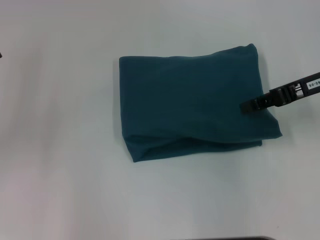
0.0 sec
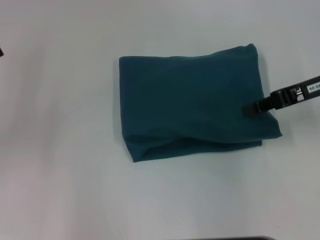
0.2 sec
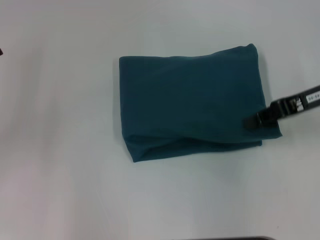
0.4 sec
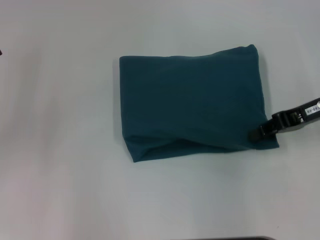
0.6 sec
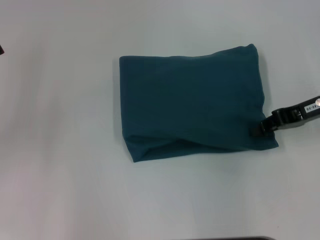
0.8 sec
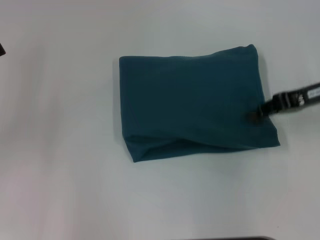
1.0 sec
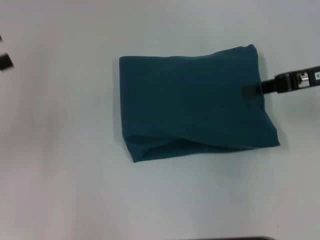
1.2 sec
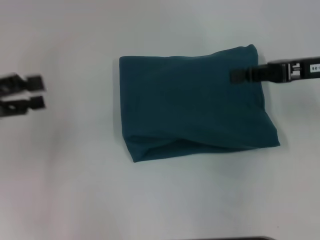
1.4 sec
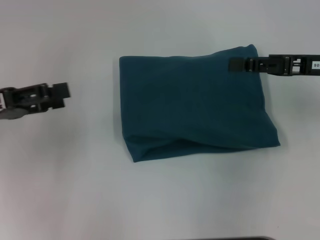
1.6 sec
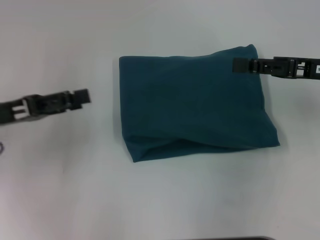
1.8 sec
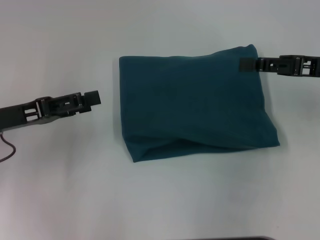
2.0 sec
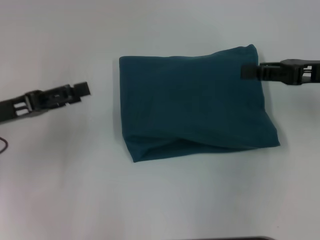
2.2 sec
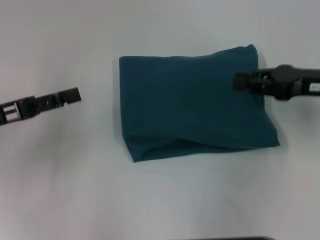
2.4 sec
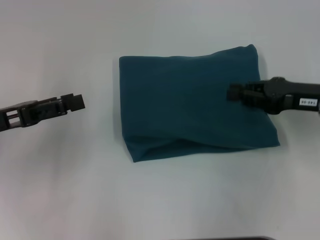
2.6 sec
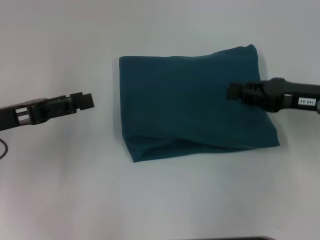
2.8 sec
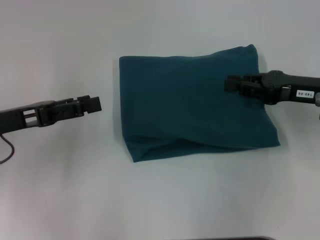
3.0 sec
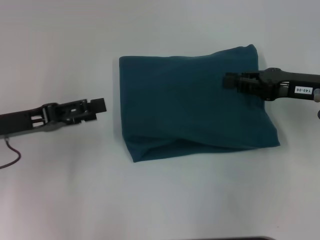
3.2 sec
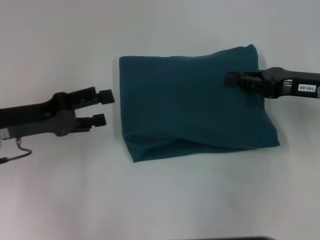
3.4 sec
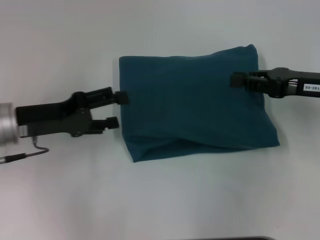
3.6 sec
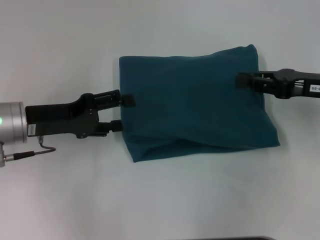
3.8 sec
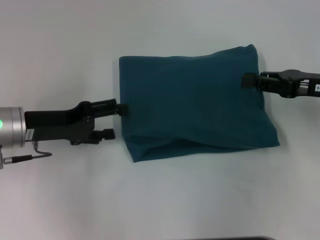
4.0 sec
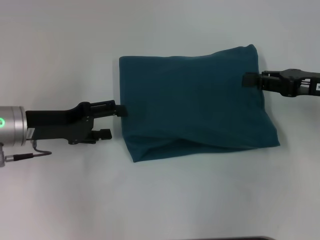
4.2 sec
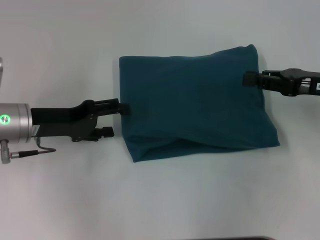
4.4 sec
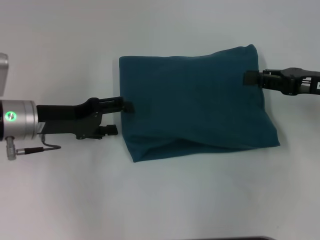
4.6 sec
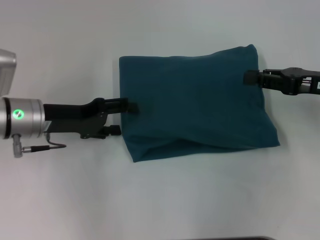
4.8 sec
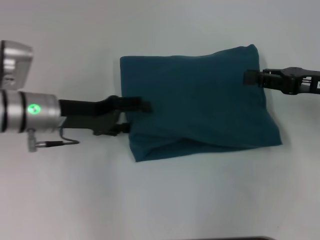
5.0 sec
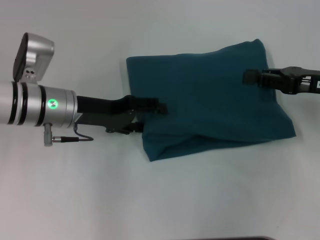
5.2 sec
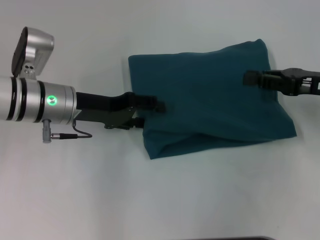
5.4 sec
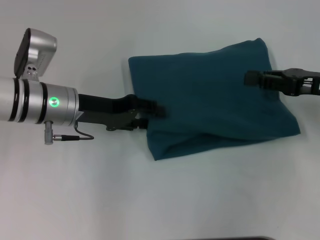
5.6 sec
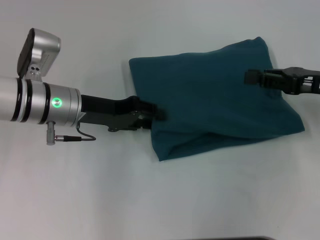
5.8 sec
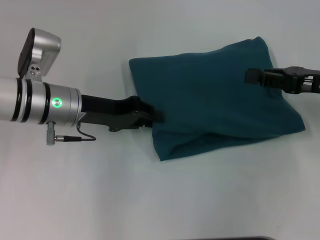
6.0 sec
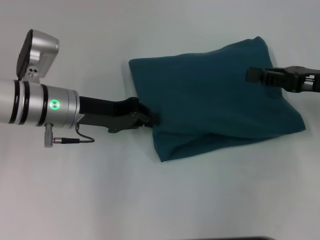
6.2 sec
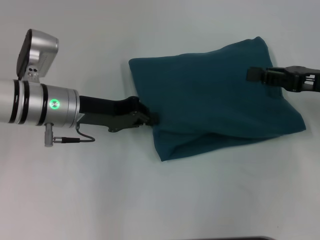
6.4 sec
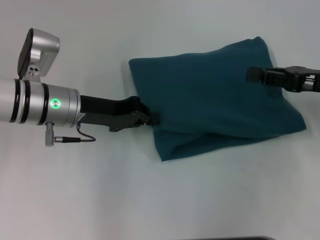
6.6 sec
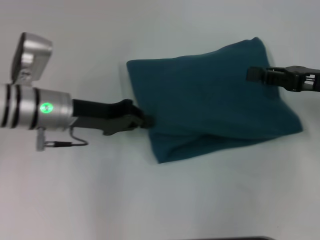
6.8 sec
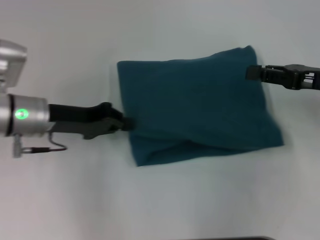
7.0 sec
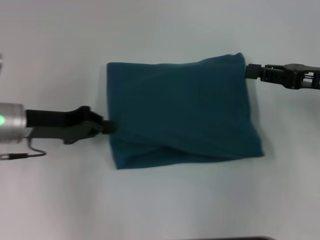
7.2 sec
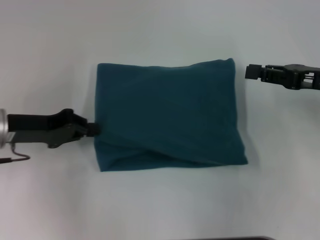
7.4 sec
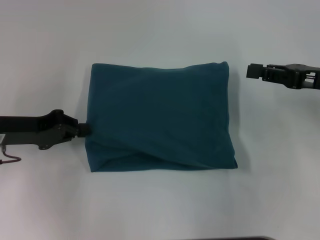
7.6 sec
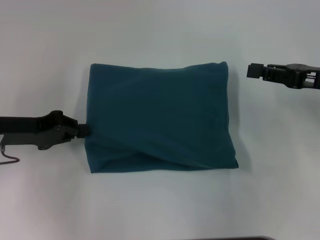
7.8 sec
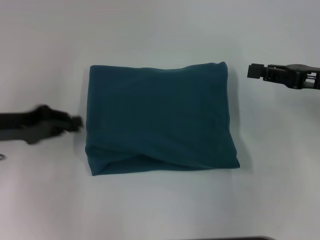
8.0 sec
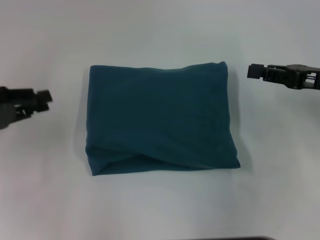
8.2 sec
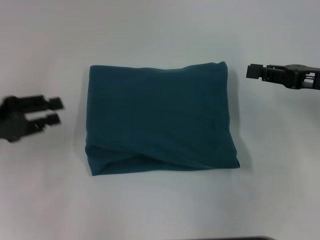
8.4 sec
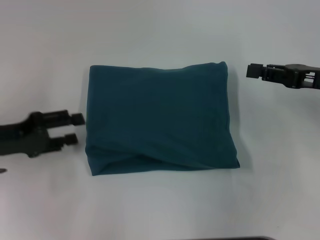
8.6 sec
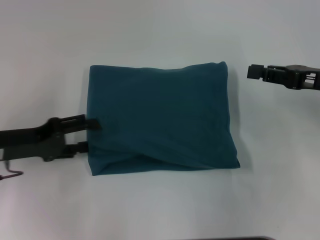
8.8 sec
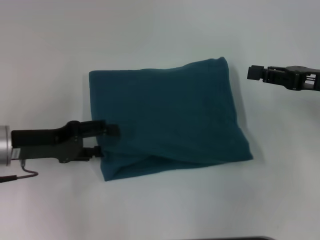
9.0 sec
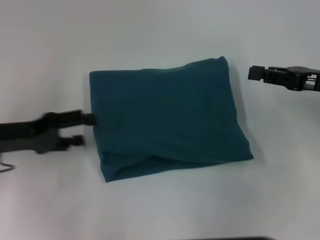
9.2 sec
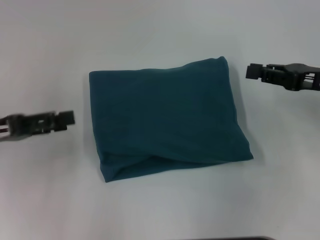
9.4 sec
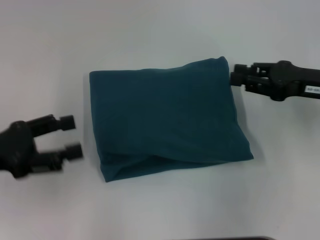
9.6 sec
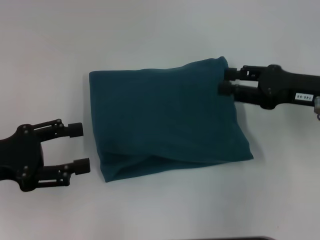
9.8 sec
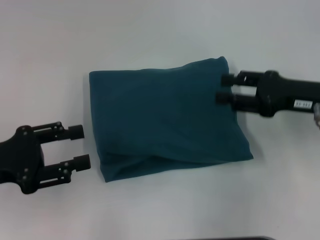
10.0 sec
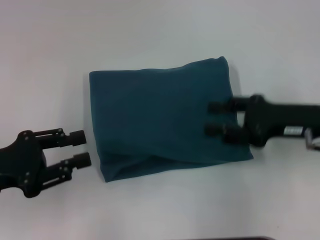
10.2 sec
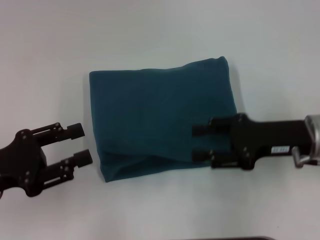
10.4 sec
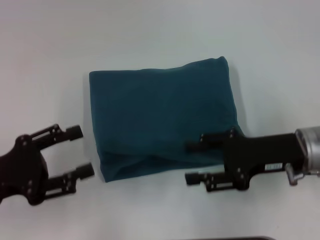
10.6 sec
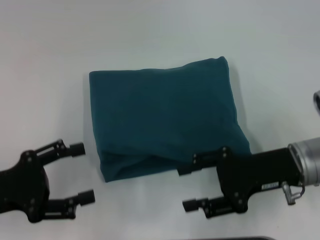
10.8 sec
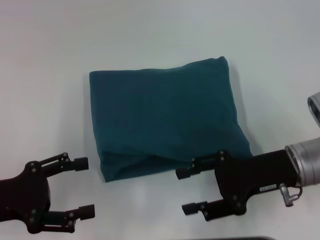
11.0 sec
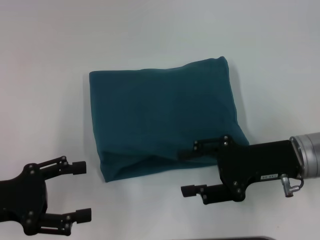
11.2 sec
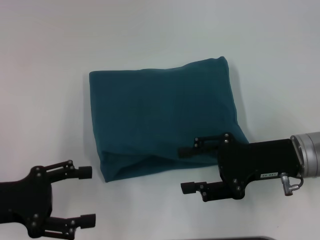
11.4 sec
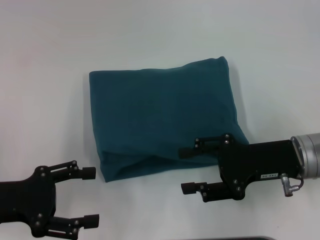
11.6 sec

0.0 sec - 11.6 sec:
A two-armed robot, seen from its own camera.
0.0 sec - 1.4 sec: The right gripper closes.
1.4 sec - 2.8 sec: The left gripper moves roughly 5 cm. Meanwhile the right gripper goes approximately 5 cm downward.
2.8 sec - 4.4 sec: The left gripper shifts some 5 cm to the right.
4.4 sec - 5.8 sec: The left gripper travels to the right by roughly 5 cm.
5.8 sec - 7.2 sec: The left gripper shifts approximately 5 cm to the left, and closes its fingers.
7.2 sec - 8.8 sec: The left gripper opens.
8.8 sec - 10.2 sec: The left gripper shifts roughly 5 cm backward. The right gripper goes roughly 5 cm to the left, and opens.

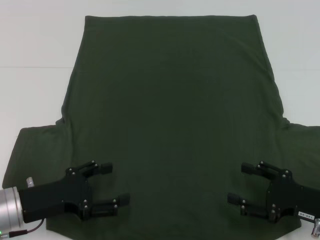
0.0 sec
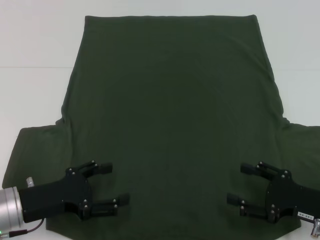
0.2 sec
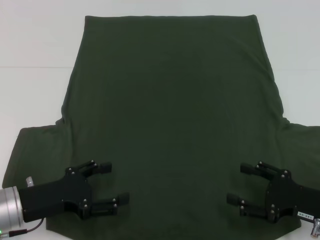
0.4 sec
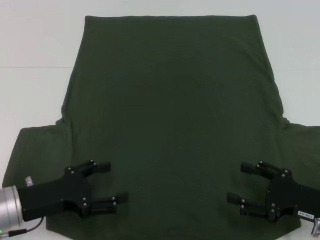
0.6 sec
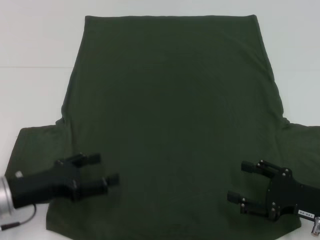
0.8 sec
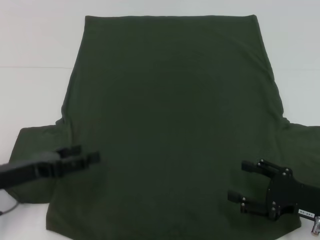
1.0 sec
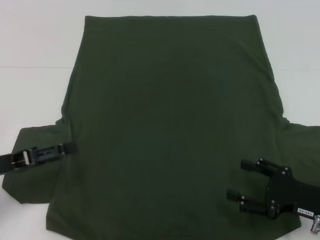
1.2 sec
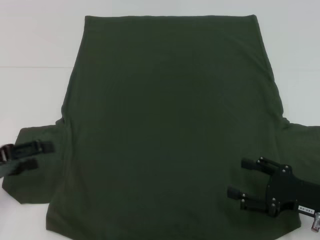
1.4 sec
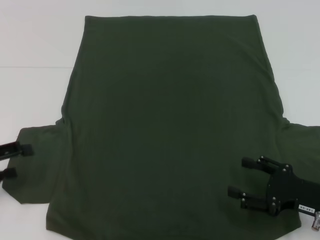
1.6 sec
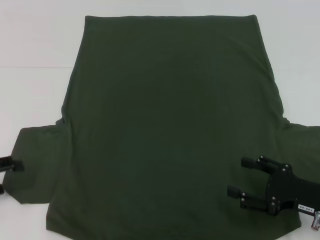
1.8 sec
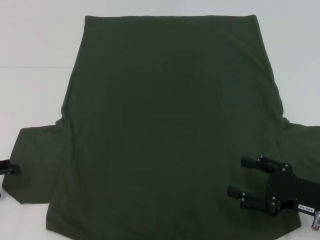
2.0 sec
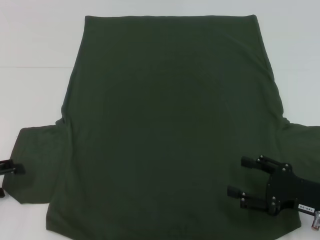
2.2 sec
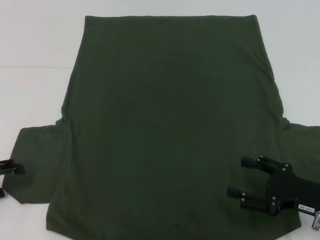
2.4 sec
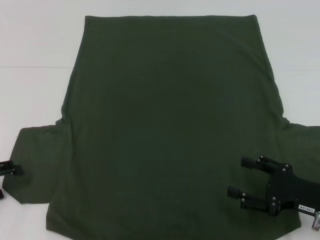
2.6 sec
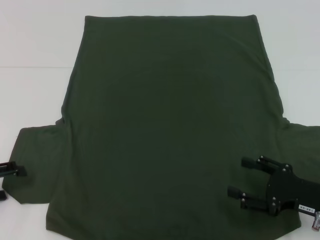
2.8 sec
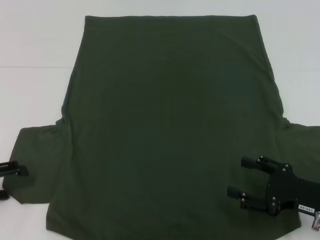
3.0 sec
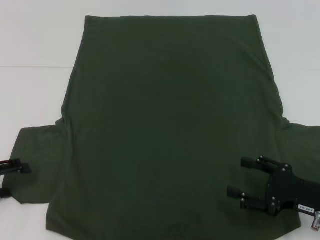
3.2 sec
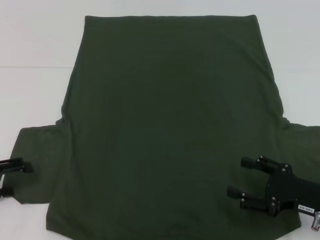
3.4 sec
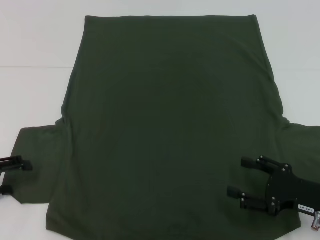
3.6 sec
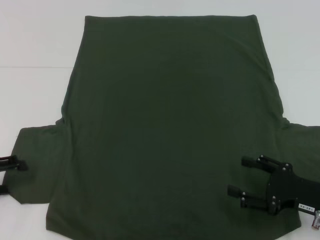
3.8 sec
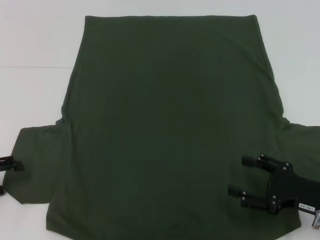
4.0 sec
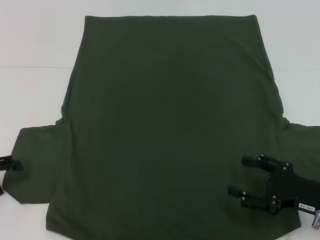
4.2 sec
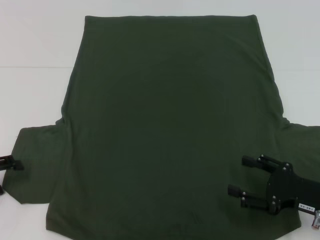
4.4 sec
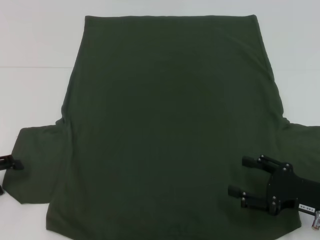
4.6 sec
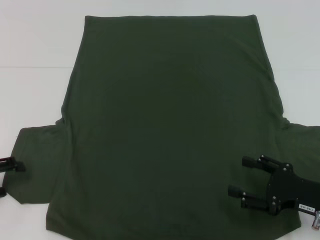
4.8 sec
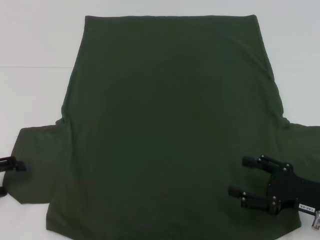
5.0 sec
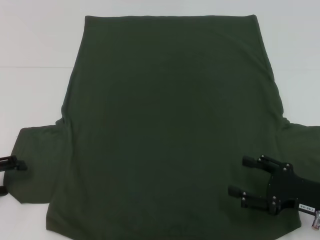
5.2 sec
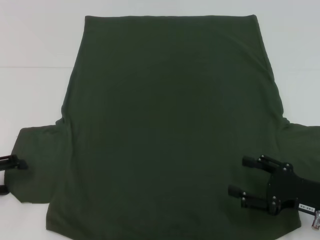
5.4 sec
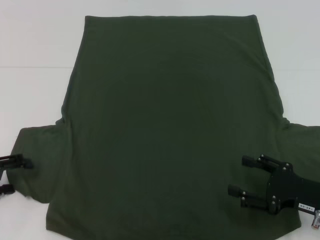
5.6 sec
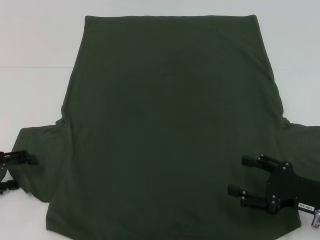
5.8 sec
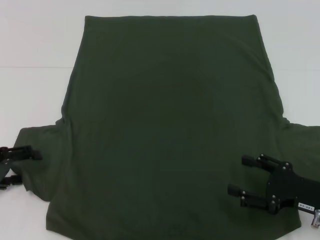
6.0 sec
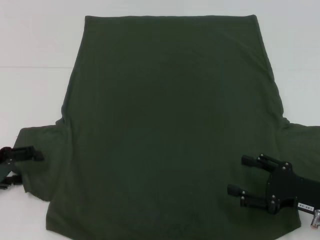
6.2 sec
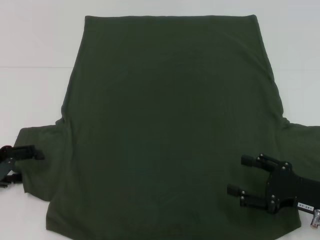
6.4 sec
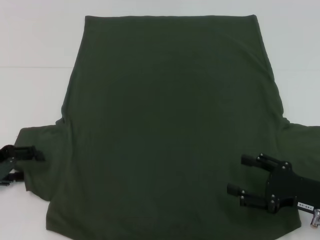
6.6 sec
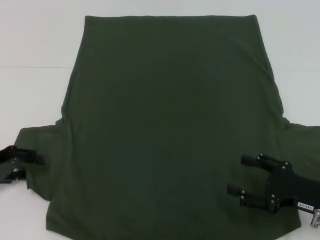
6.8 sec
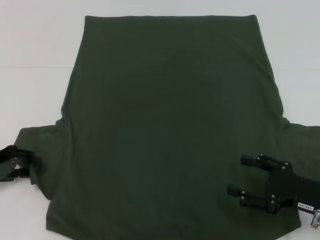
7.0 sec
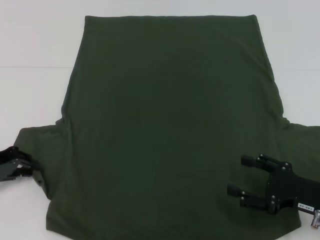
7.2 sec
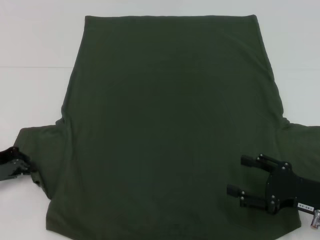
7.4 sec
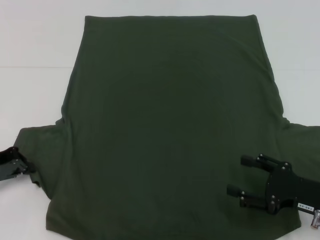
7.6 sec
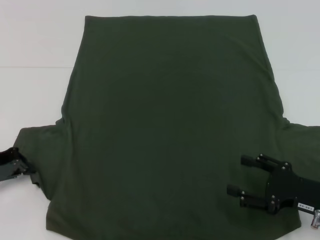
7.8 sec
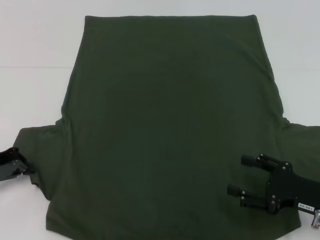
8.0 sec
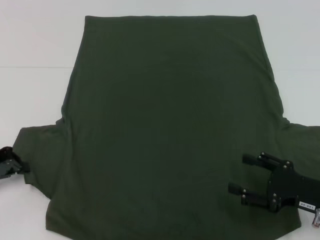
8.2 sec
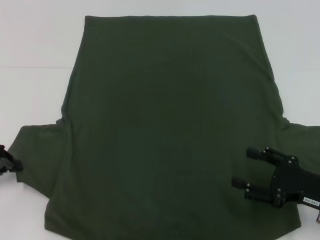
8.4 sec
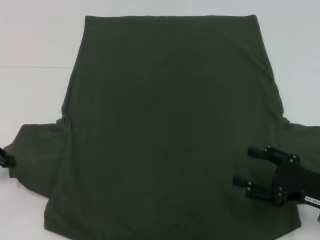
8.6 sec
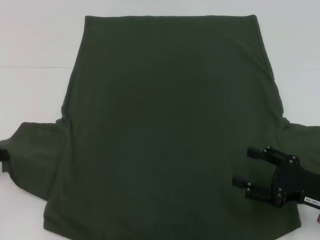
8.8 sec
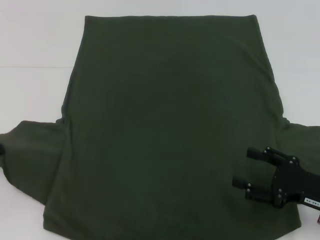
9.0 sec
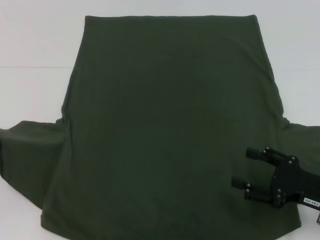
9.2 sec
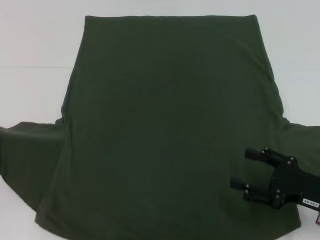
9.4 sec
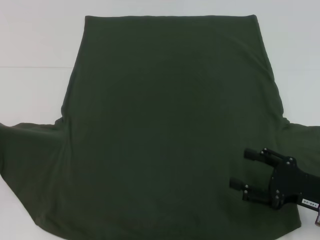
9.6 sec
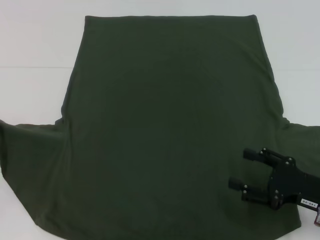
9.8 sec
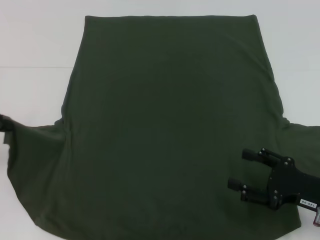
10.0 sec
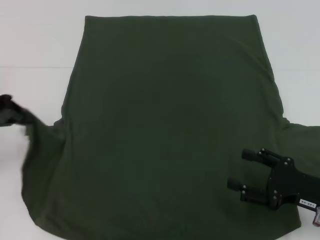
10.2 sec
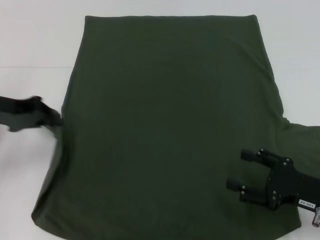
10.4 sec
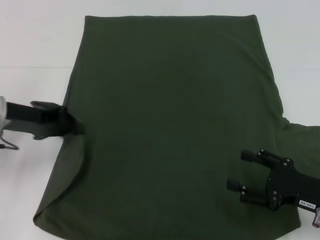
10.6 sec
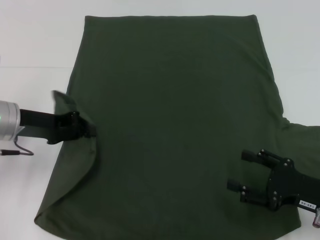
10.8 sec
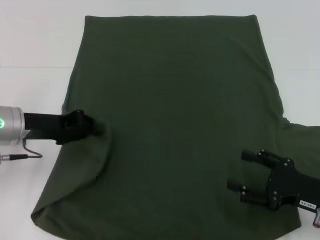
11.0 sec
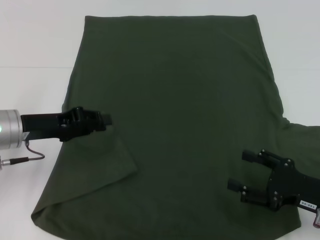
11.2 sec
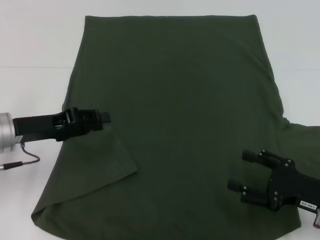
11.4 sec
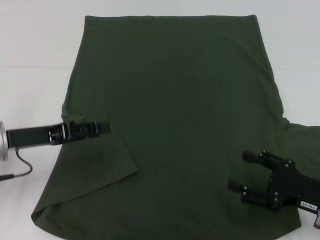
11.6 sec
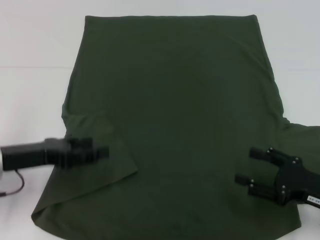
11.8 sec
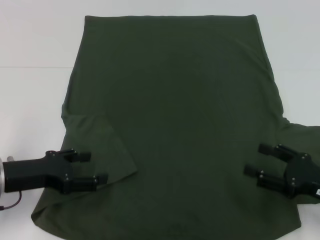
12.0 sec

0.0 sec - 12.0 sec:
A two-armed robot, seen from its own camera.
Step, 0.0 sec - 11.4 sec: Fold the bottom left sleeve with your left hand.
0.0 sec - 1.6 sec: The left gripper moves to the left and upward, some 15 cm.
1.6 sec - 3.0 sec: The grippers make only small movements.
3.0 sec - 4.4 sec: The two grippers keep their place.
4.4 sec - 6.0 sec: There are only small adjustments of the grippers.
6.0 sec - 7.6 sec: The left gripper closes its fingers.
7.6 sec - 9.0 sec: The left gripper ends up approximately 5 cm from where it was.
9.0 sec - 10.4 sec: The left gripper moves to the right, approximately 5 cm.
10.4 sec - 12.0 sec: The left gripper travels downward and backward by roughly 10 cm, and opens.
